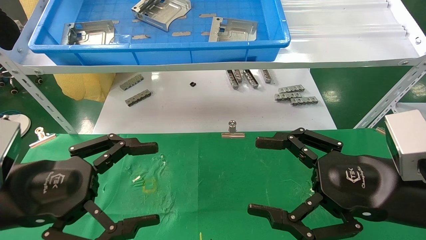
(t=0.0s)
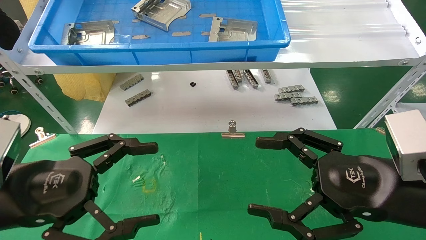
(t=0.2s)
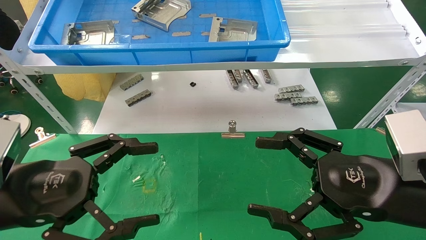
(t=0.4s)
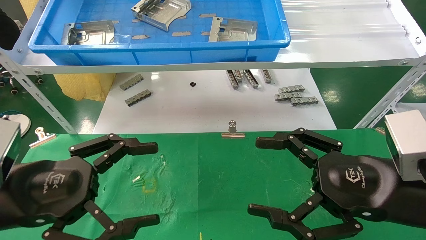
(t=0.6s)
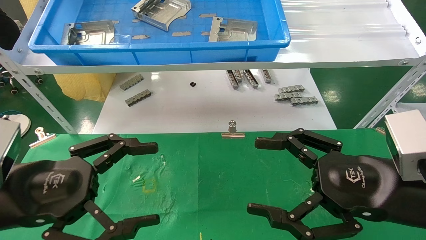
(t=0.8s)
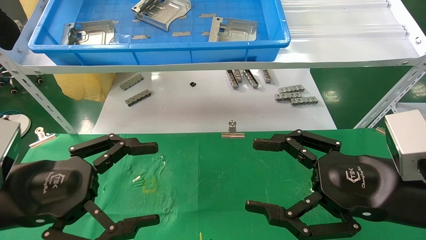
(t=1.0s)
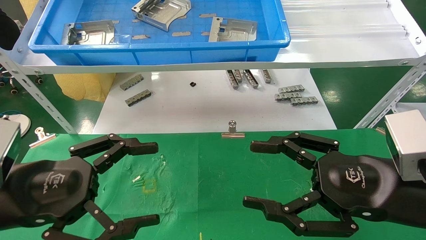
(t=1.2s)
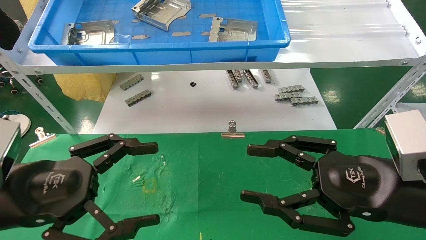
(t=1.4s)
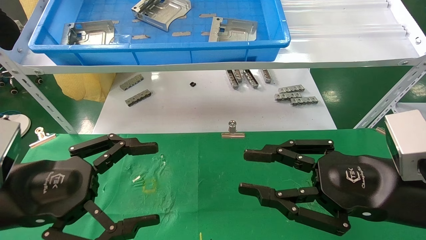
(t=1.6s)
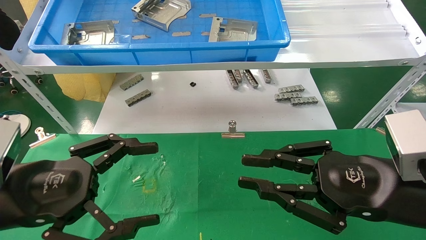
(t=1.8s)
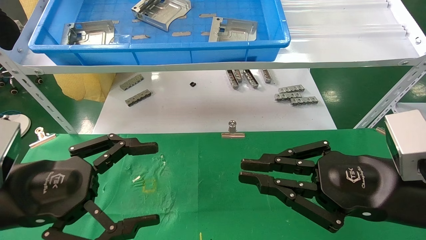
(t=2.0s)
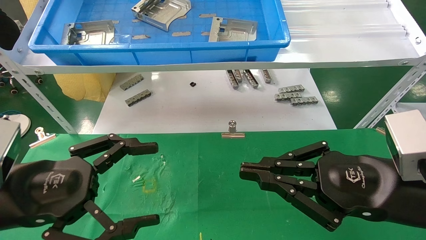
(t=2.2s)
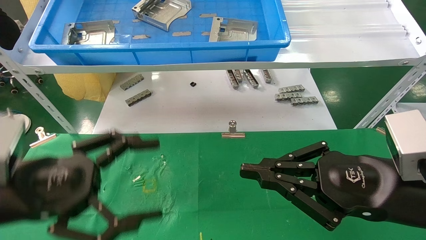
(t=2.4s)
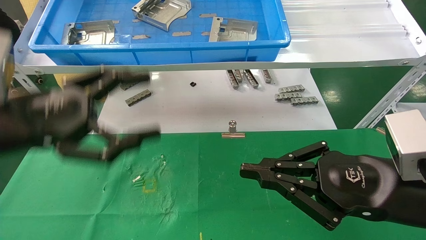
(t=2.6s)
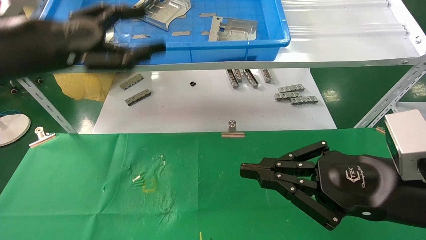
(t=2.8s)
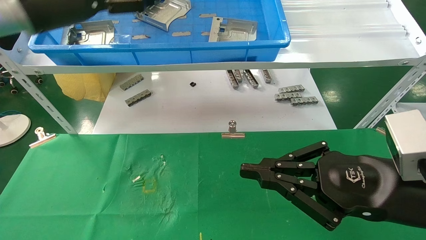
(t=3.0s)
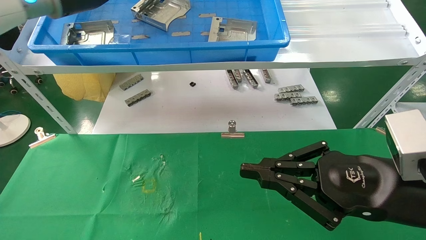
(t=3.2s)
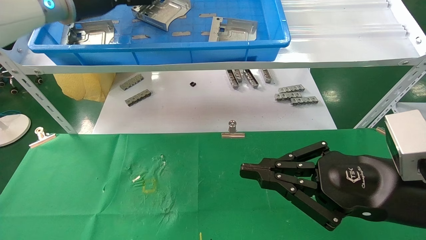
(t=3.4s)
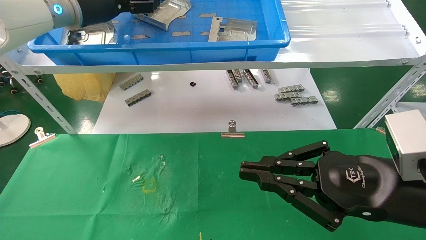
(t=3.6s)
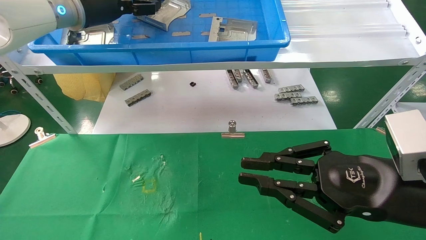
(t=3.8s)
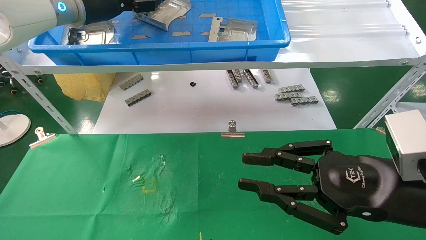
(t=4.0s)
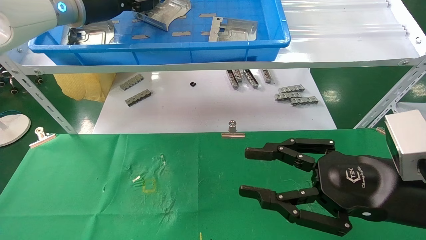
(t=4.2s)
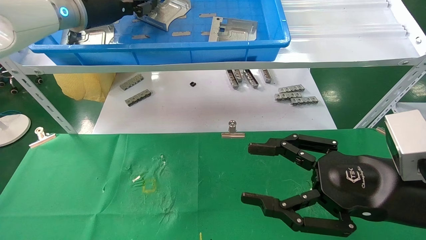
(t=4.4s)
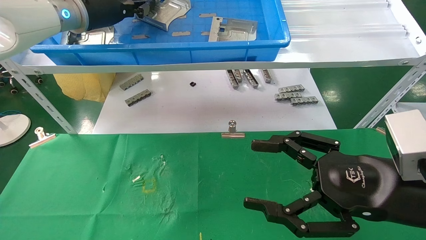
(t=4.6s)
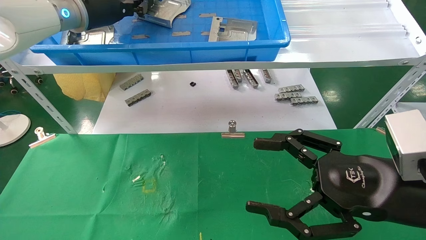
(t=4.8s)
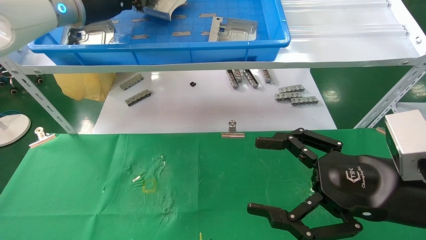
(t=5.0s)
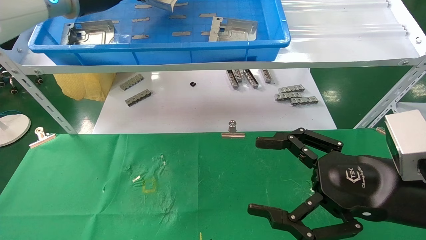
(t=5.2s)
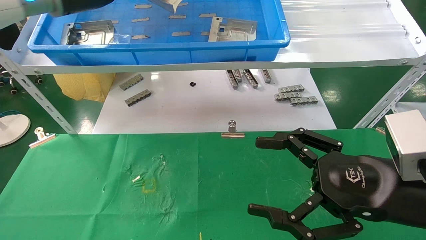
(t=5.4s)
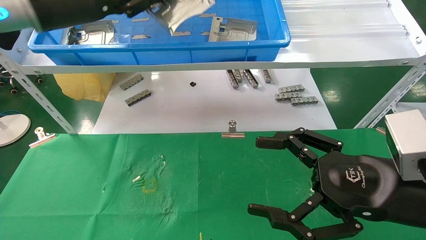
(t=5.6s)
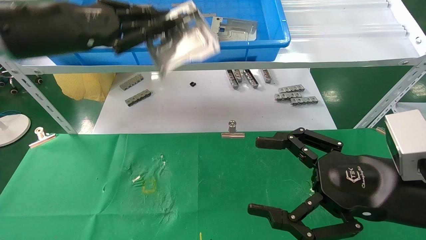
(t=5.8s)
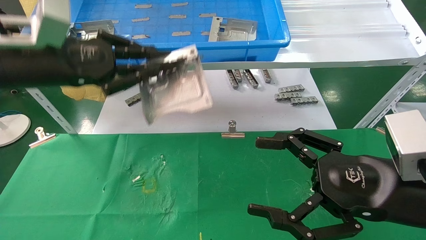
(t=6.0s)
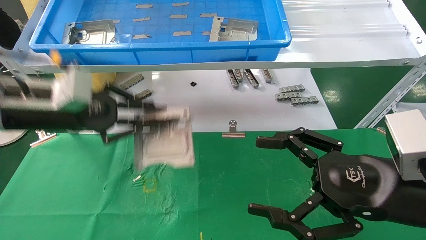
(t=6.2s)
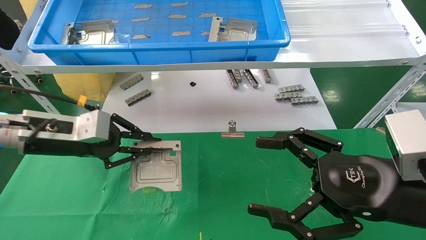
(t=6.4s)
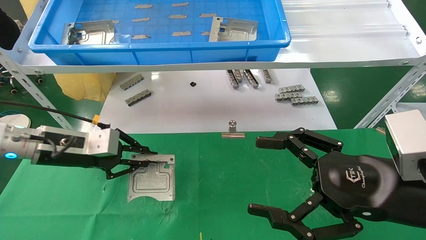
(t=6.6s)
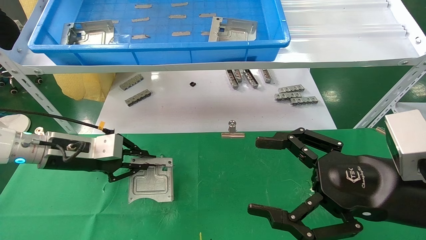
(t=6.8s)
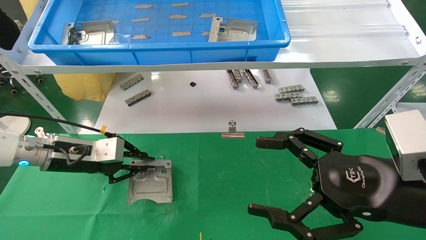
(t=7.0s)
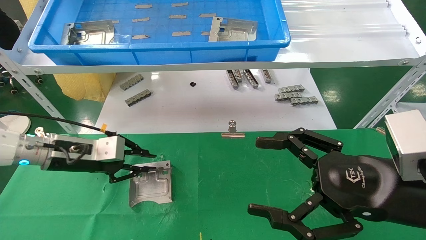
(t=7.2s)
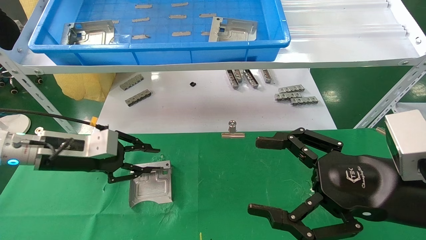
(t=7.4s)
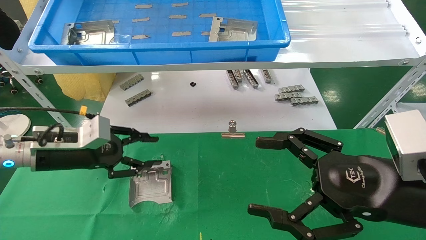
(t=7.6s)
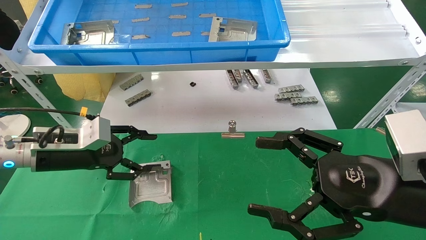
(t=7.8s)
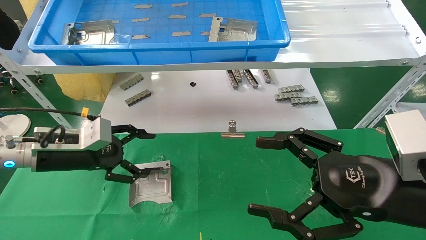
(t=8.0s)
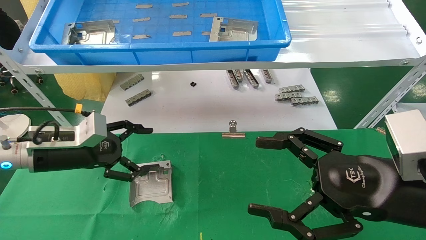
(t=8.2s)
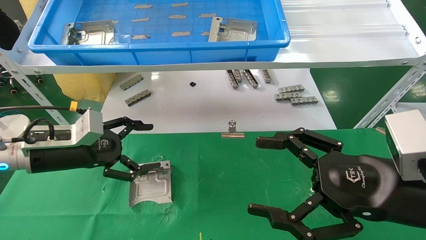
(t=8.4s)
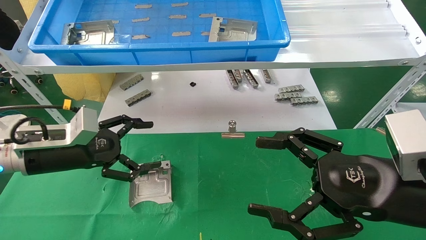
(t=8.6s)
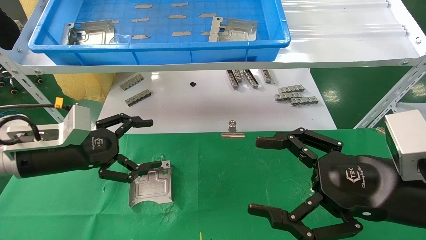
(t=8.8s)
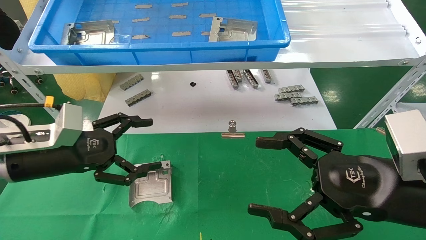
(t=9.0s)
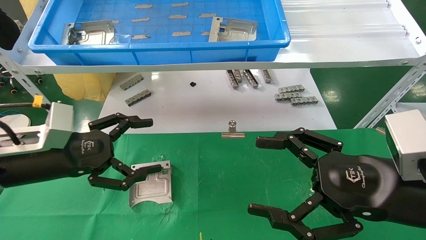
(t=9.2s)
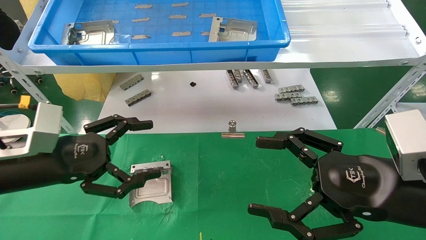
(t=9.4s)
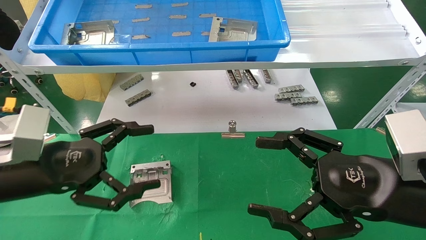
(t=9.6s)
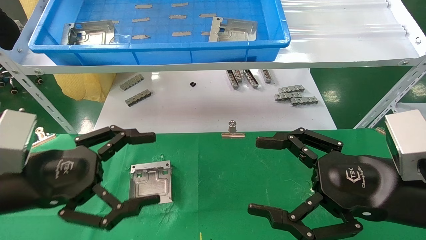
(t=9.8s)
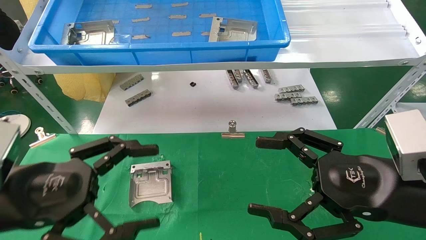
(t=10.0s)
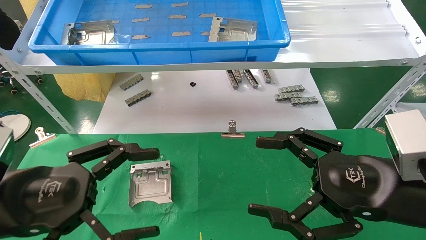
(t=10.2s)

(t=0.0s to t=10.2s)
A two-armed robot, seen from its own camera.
Task of the whole recording: use the mechanical arm to pick up the parts and place them on the table.
Step, t=2.6s - t=4.6s: Pick up the hard drive bracket from the feeding area.
Step, t=4.8s - t=7.4s: Place the hard drive bracket into the box.
t=0.0s - t=1.4s: The two grippers keep their place.
t=1.4s - t=3.0s: The left gripper heads upward and forward, covering roughly 25 cm; the right gripper closes up.
t=3.0s - t=4.4s: The left gripper travels forward by some 10 cm, and closes up; the right gripper opens up.
t=4.4s - t=5.8s: The right gripper opens up, while the left gripper shifts about 10 cm backward, and closes its fingers.
t=5.8s - t=7.2s: The left gripper goes approximately 20 cm downward.
t=7.2s - t=8.8s: The left gripper shifts approximately 5 cm backward, and opens.
t=8.8s - t=10.2s: The left gripper heads backward, covering about 15 cm.

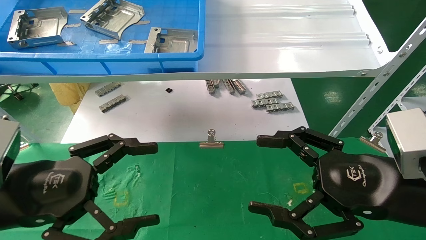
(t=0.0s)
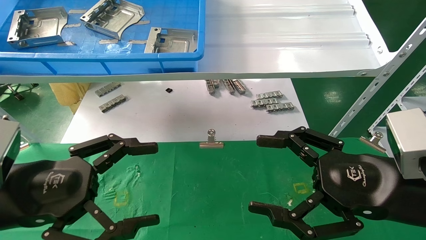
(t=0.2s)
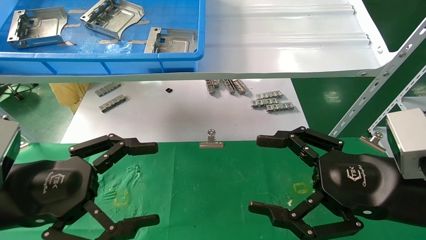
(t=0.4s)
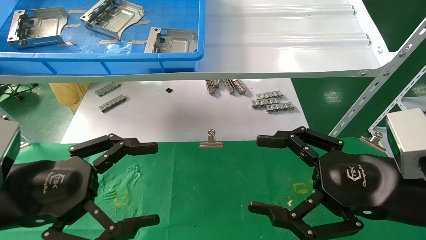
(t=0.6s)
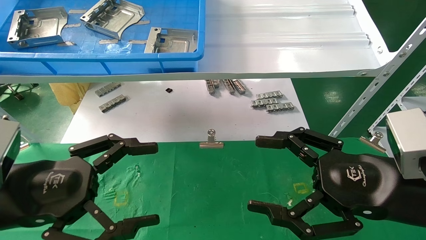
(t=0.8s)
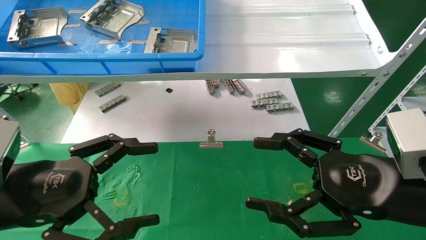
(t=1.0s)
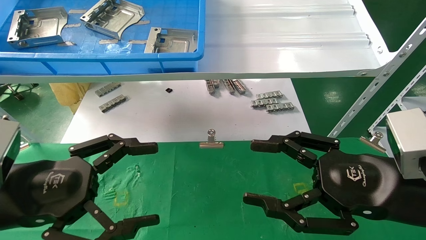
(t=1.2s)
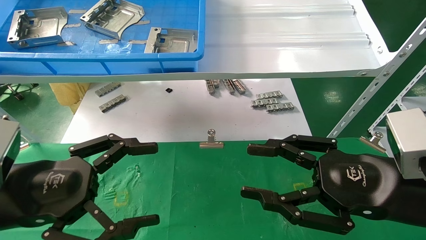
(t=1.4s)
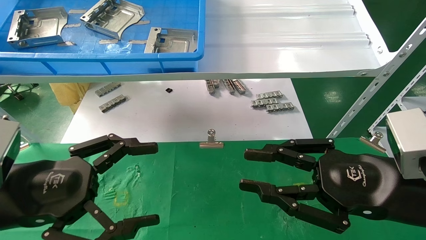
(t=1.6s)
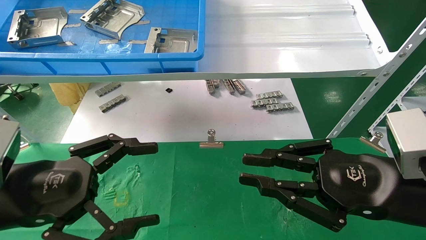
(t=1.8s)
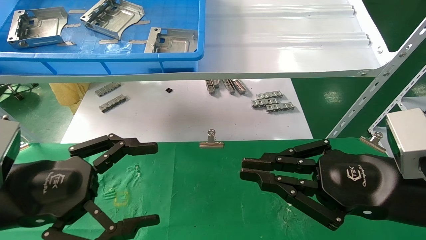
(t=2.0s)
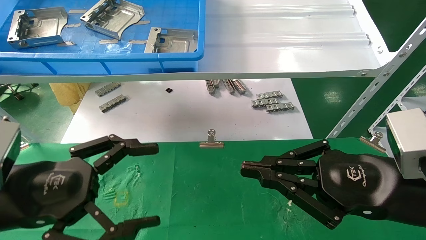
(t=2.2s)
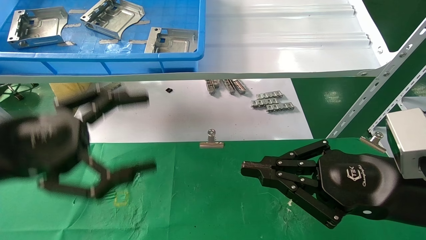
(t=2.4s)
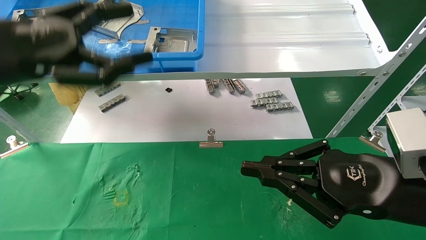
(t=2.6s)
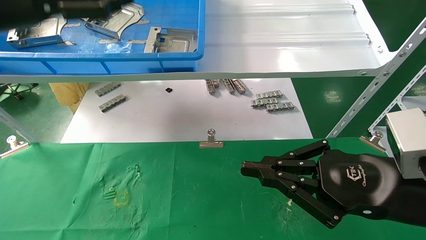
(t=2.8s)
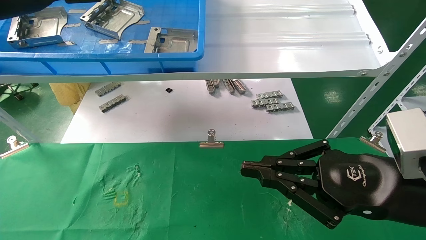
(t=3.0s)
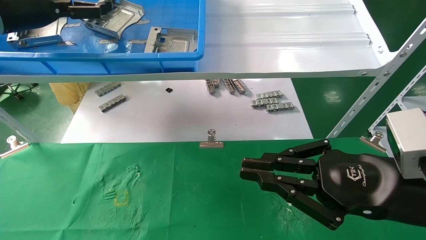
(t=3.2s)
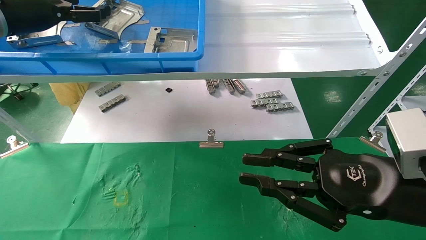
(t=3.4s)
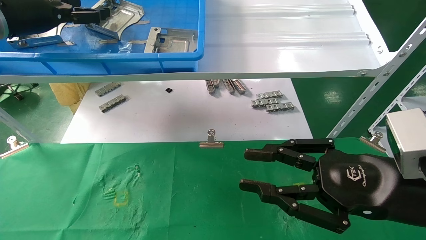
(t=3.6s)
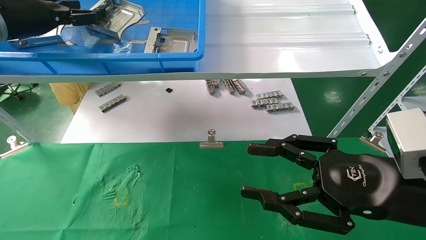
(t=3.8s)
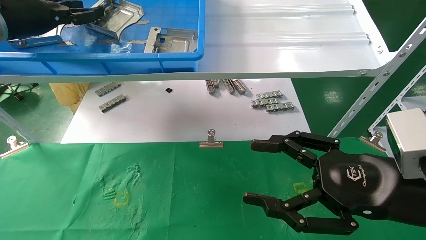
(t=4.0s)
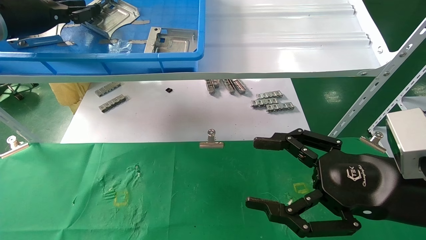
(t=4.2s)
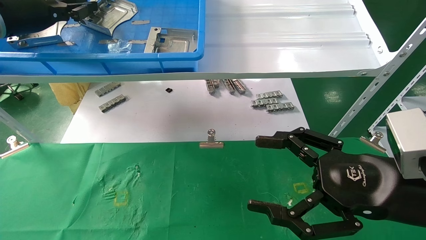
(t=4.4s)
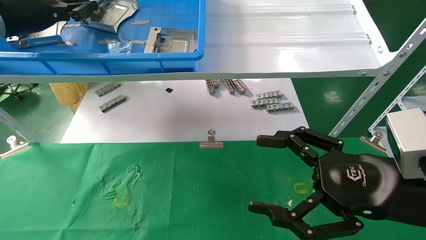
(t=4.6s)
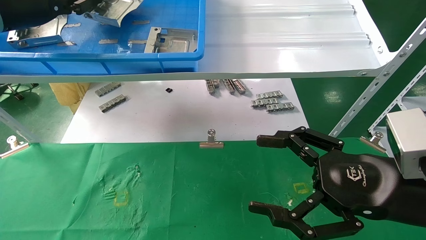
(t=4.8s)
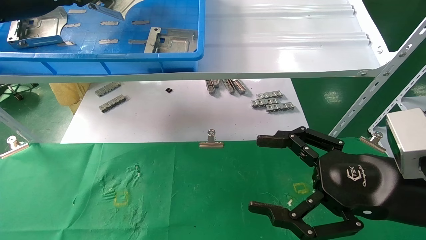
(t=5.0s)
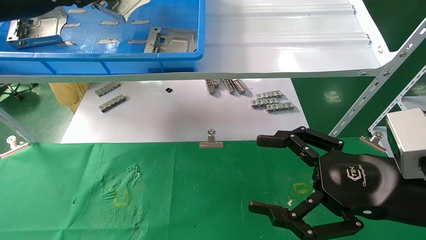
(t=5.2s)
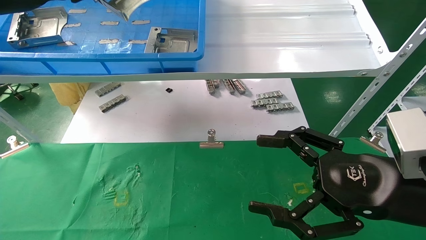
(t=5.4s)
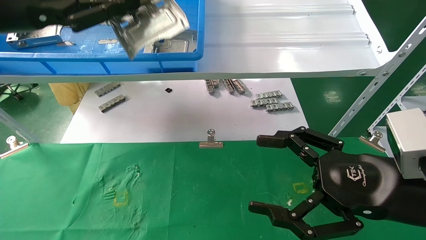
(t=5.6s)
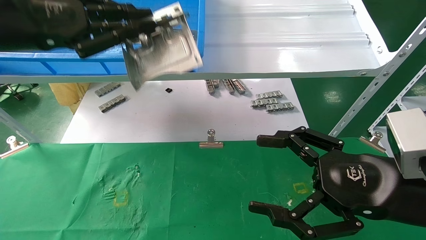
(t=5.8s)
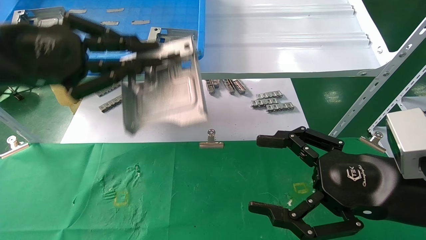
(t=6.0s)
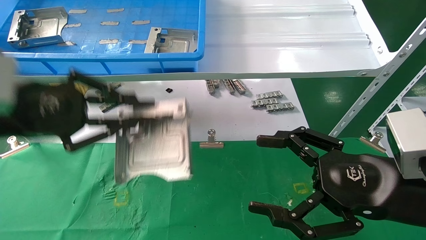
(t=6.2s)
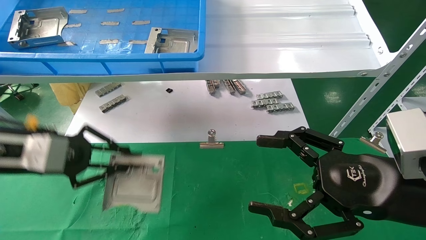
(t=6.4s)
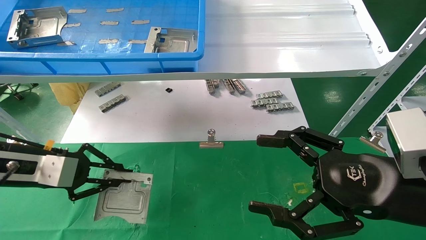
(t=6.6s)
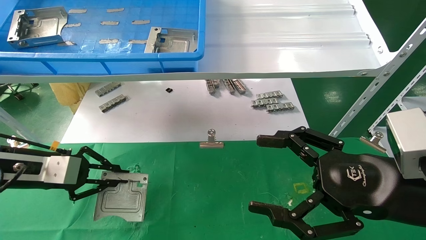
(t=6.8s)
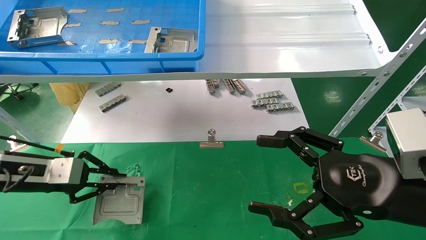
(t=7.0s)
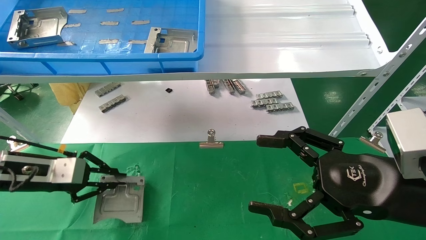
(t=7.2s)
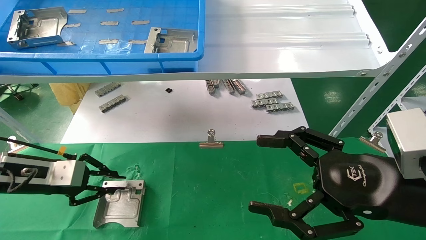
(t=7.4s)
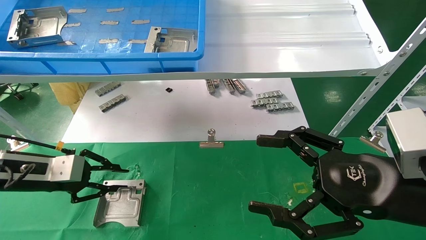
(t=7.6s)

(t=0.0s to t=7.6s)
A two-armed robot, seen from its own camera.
Task of the whole recording: use the mechanical arm to pick up the parts and place them on the table.
Step, t=2.6s - t=4.4s: Pick up the hard drive bracket from the feeding area.
Step, t=4.6s - t=7.6s: Place the hard drive bracket into the box.
t=0.0s - t=1.6s: The right gripper closes up.
t=1.6s - t=3.0s: The left gripper shifts about 30 cm upward and forward; the right gripper closes.
t=3.0s - t=4.6s: The left gripper closes its fingers. Meanwhile the right gripper opens.
t=4.6s - t=6.0s: The left gripper travels backward, downward and to the right by some 15 cm.
t=6.0s - t=7.6s: The left gripper shifts some 20 cm downward.
